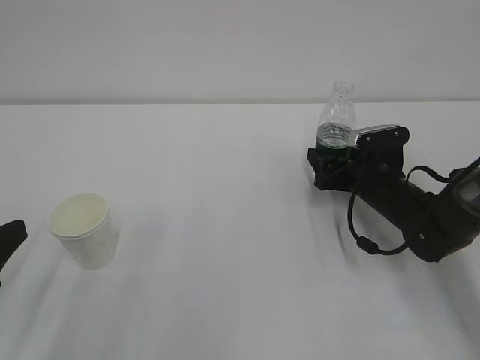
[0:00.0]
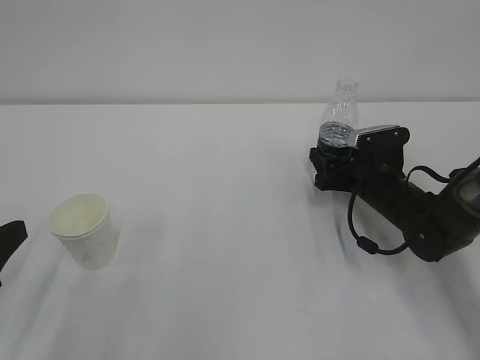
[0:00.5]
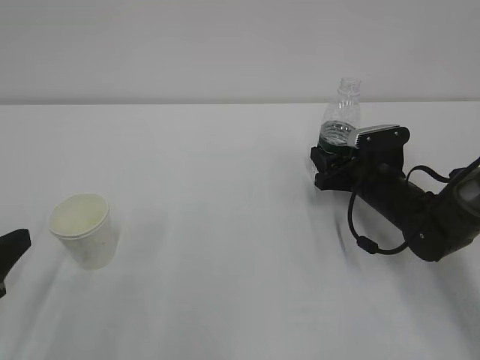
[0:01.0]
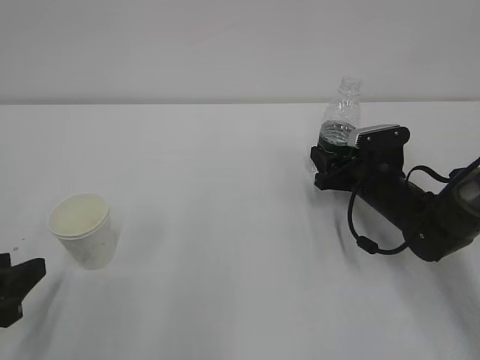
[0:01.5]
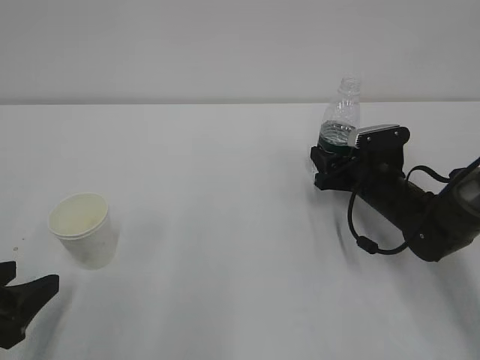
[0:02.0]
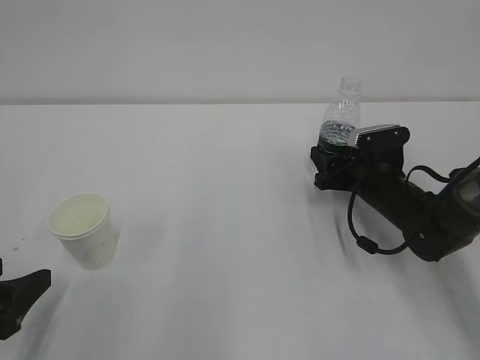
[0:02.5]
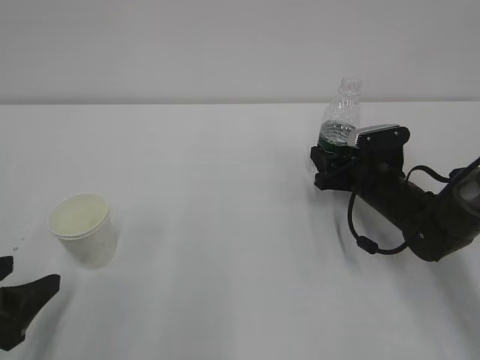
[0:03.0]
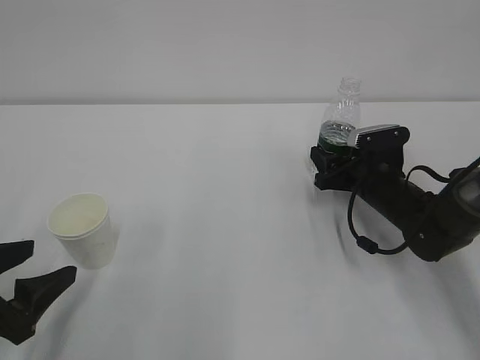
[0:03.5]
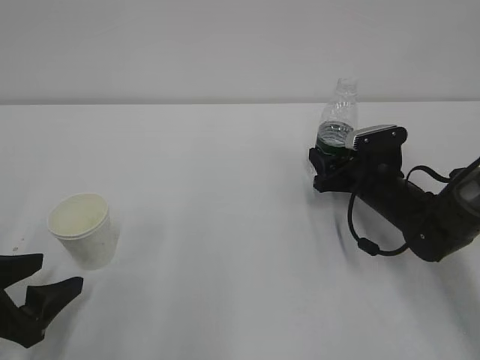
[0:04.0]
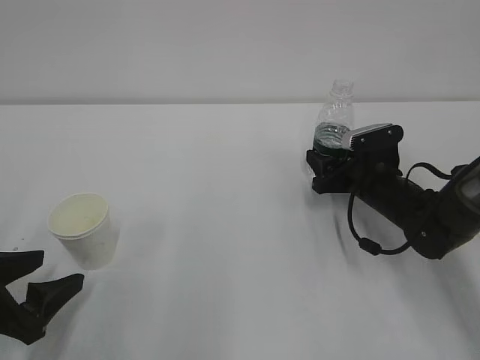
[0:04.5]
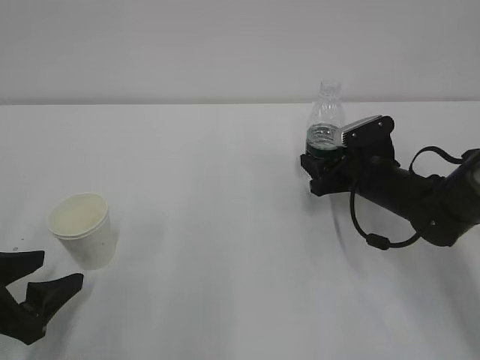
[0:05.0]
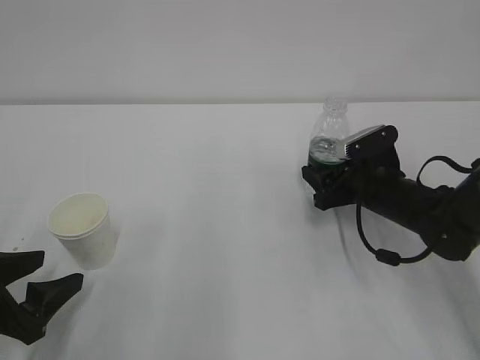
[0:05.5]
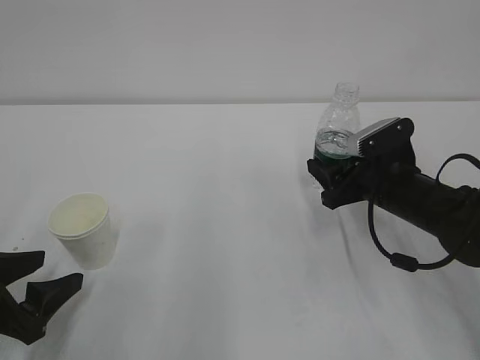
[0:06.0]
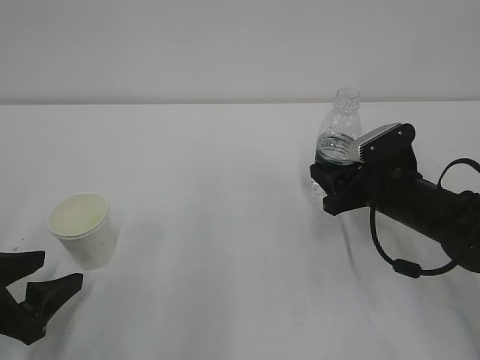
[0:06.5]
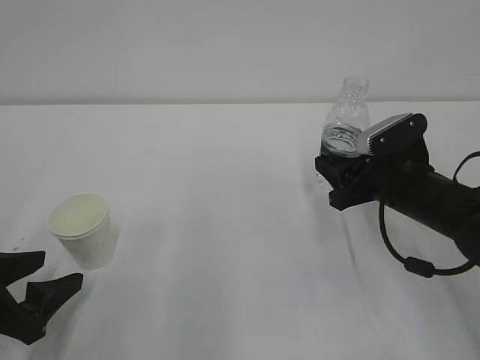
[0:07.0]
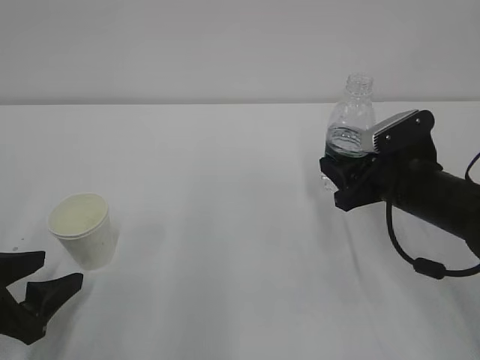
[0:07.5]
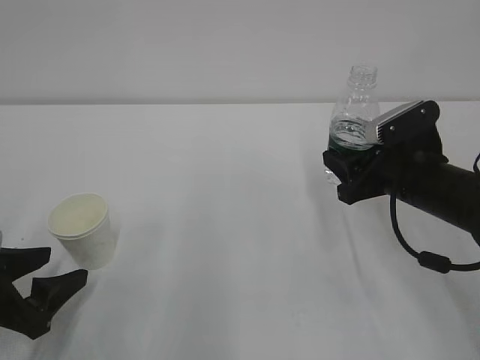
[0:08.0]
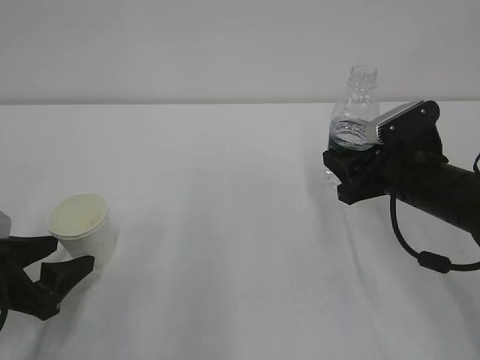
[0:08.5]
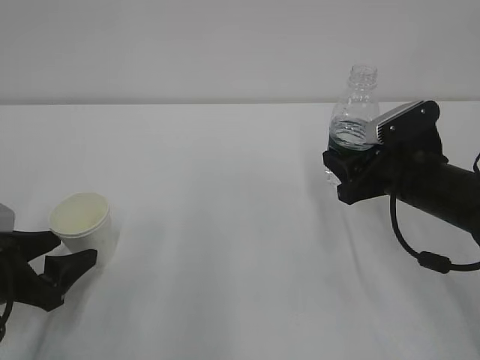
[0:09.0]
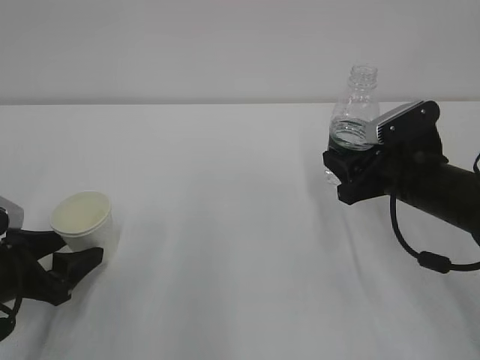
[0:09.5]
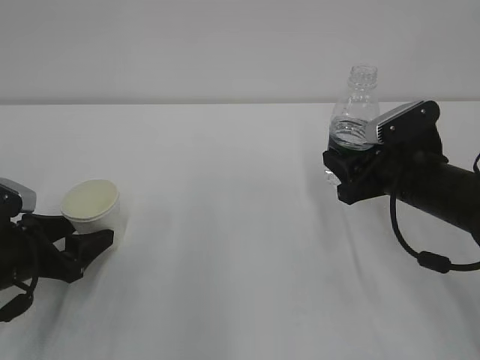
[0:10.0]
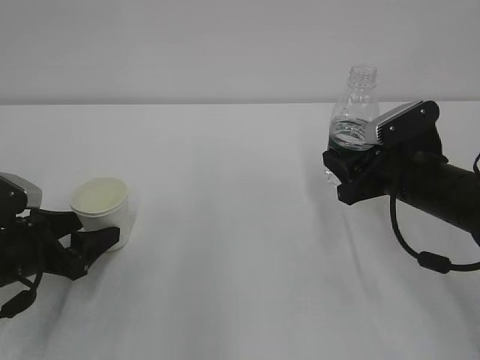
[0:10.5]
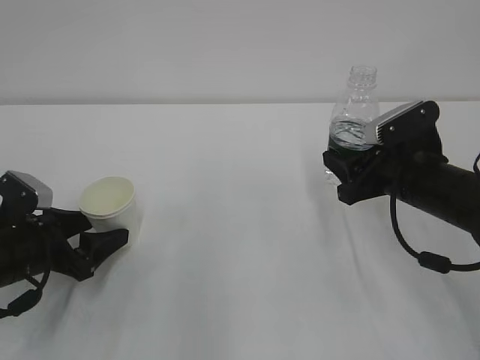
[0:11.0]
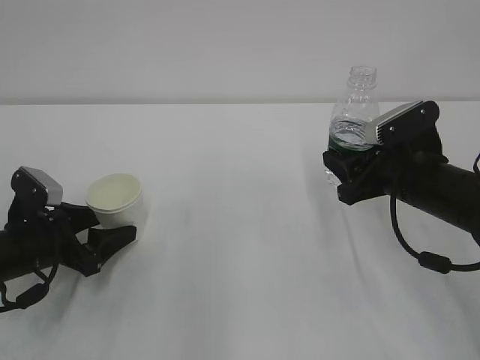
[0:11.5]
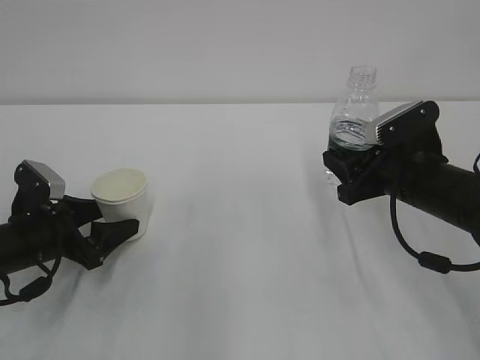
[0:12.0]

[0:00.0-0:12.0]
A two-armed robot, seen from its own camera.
0:00.0 to 0:02.0: The left gripper opens.
0:02.0 to 0:04.0: There are only small adjustments of the grippers.
0:04.0 to 0:06.0: The right gripper changes place by some 5 cm.
0:06.0 to 0:08.0: The grippers stay close to where they were, moving slightly.
0:08.0 to 0:10.0: The left gripper travels forward by some 5 cm.
0:10.0 to 0:12.0: There are only small adjustments of the grippers.

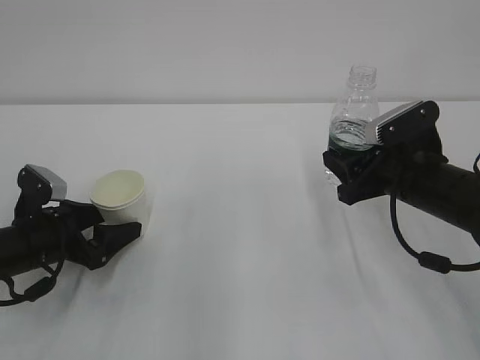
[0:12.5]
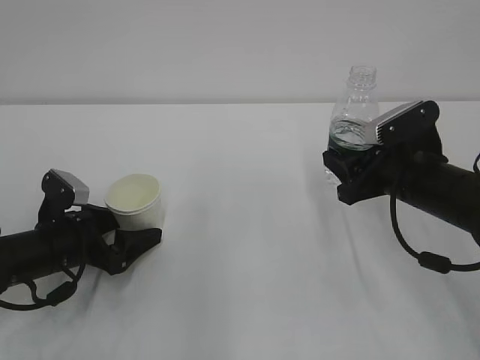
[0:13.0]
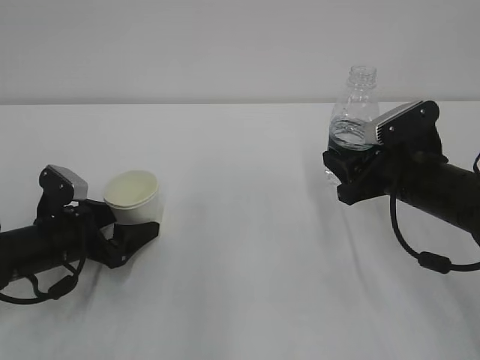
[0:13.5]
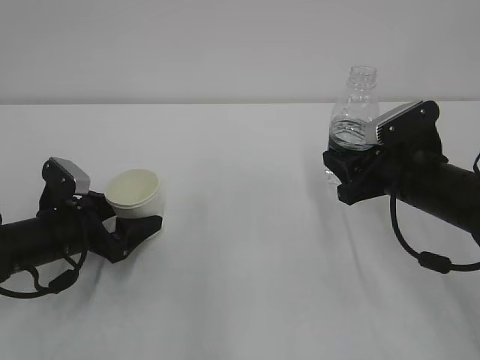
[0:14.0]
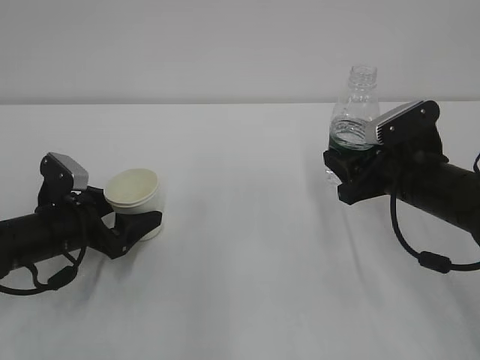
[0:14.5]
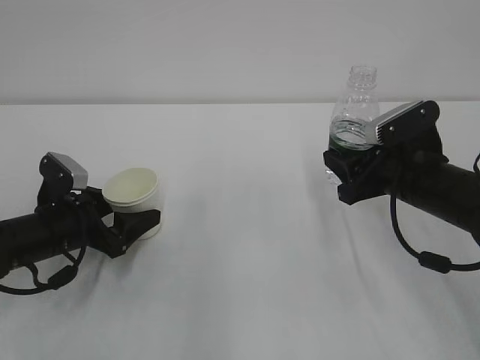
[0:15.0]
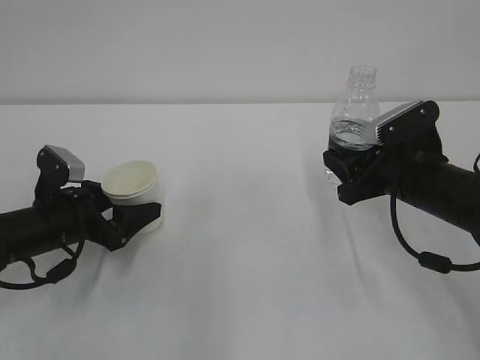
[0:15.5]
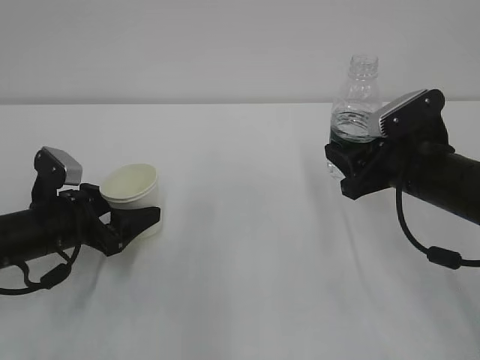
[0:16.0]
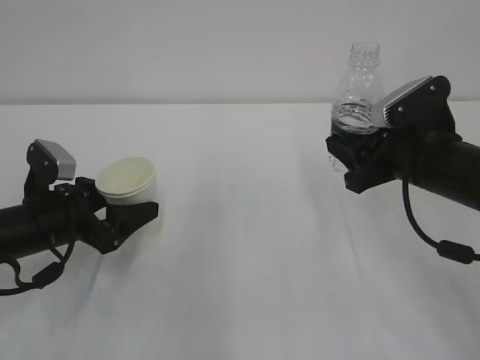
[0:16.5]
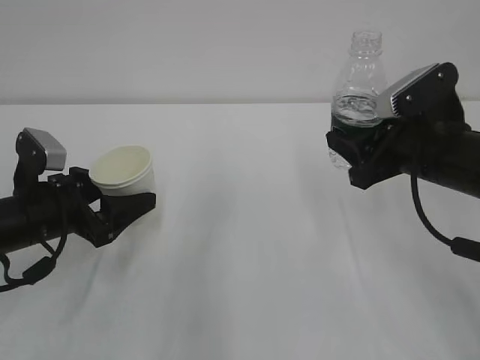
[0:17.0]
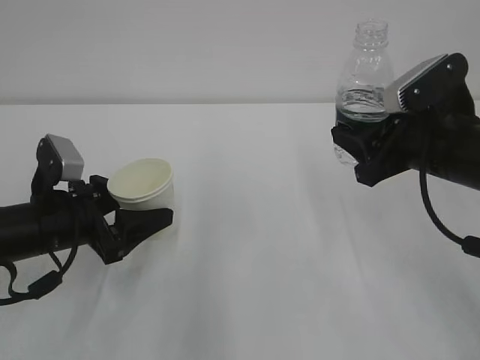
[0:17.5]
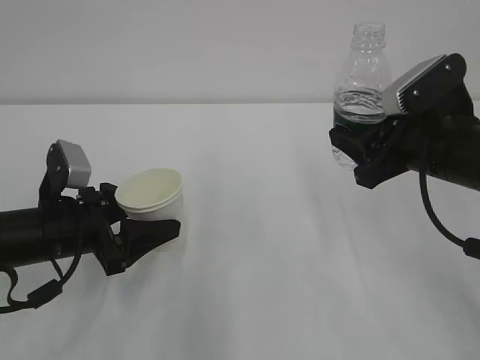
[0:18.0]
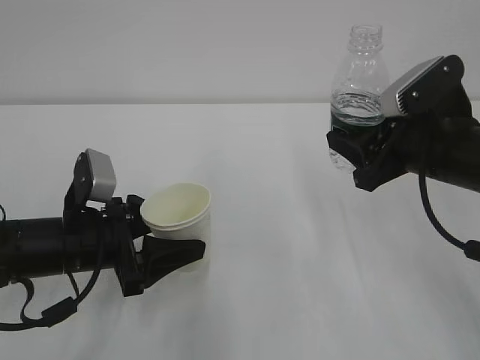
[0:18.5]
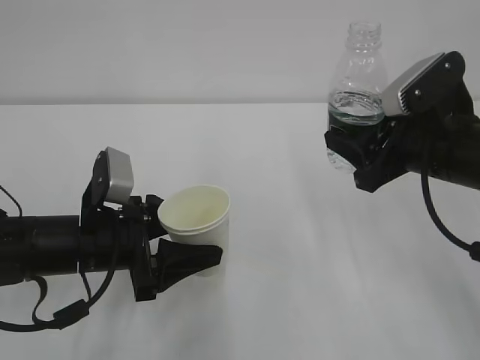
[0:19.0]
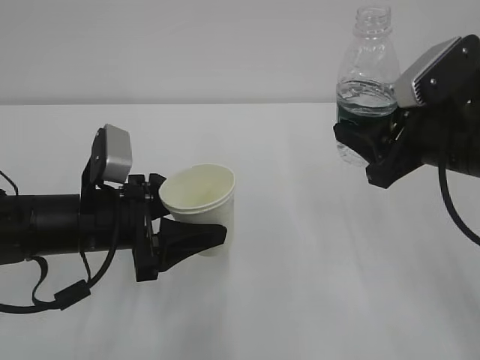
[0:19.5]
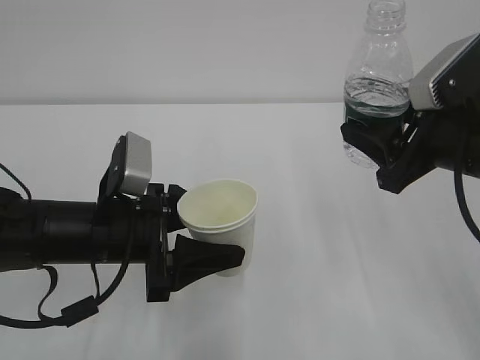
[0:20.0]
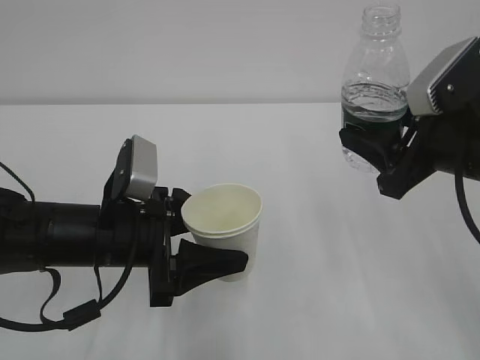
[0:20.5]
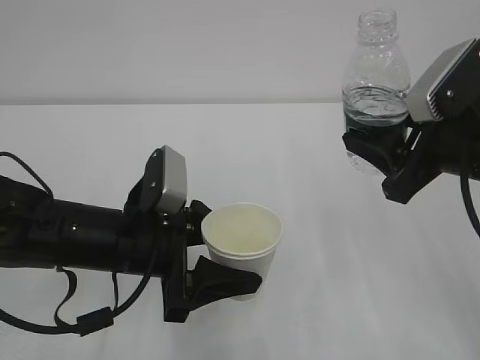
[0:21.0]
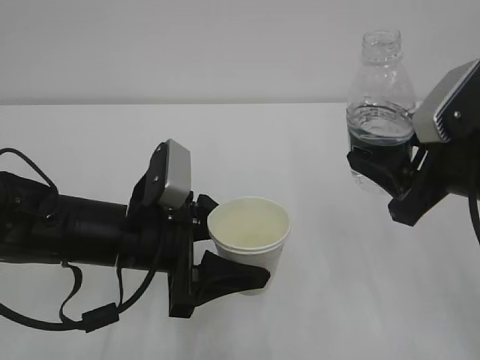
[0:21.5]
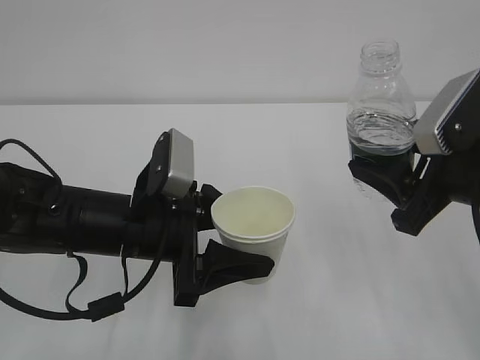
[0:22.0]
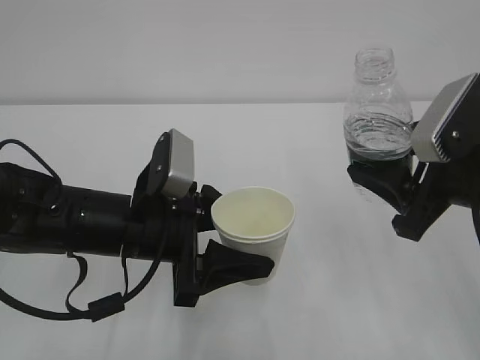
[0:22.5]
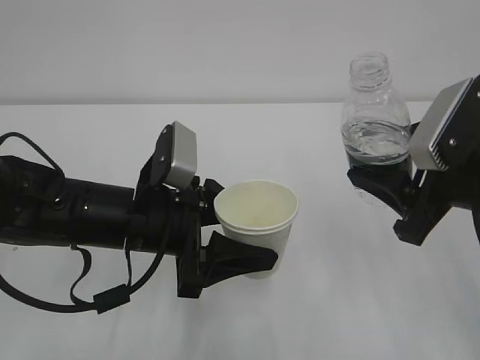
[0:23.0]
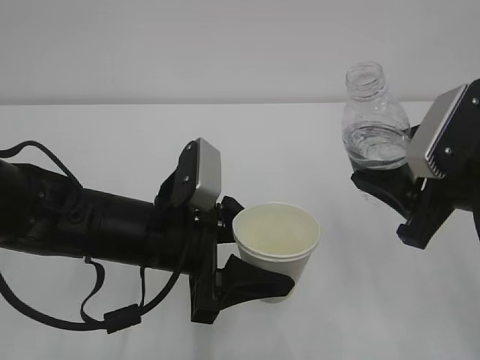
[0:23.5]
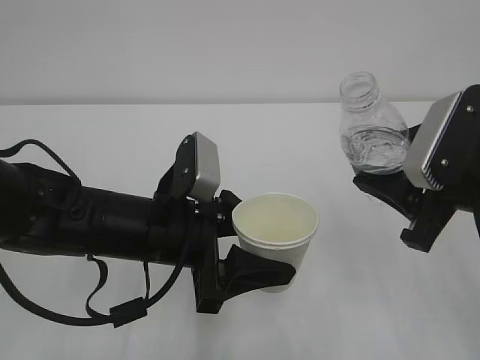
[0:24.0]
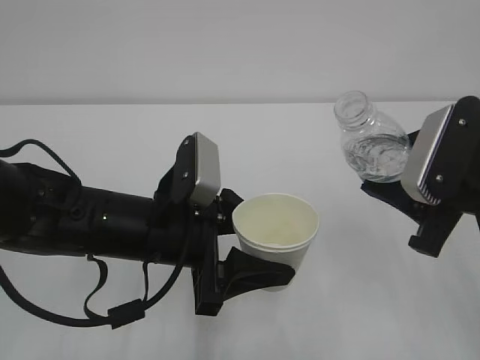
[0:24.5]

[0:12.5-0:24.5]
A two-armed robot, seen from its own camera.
Step, 0:12.5 to 0:14.5: Grasp the cup with left gripper.
0:12.5 to 0:16.5: The grippers move only a little.
0:16.5 to 0:18.5: The left gripper travels to the right by approximately 5 cm.
0:18.5 to 0:20.5: The left gripper ends up approximately 5 cm from where it was.
0:22.5 to 0:24.5: The grippers move only a little.

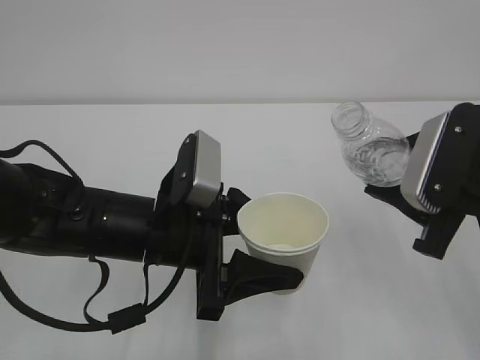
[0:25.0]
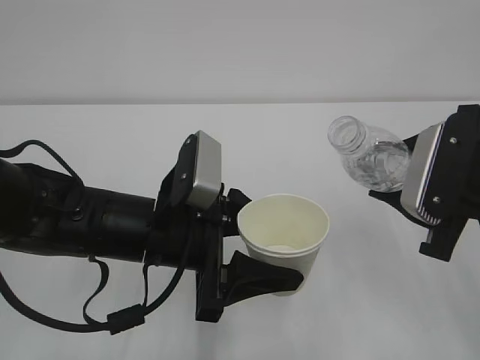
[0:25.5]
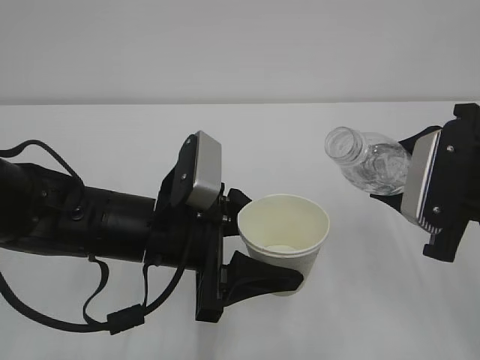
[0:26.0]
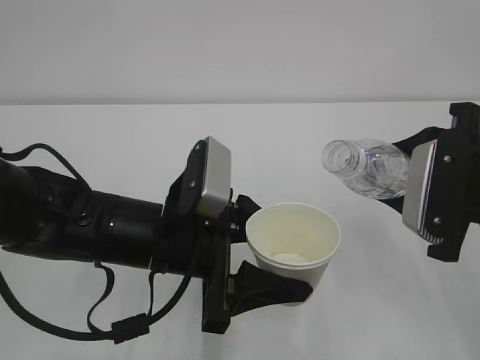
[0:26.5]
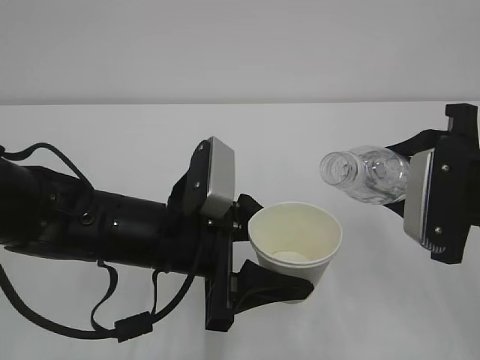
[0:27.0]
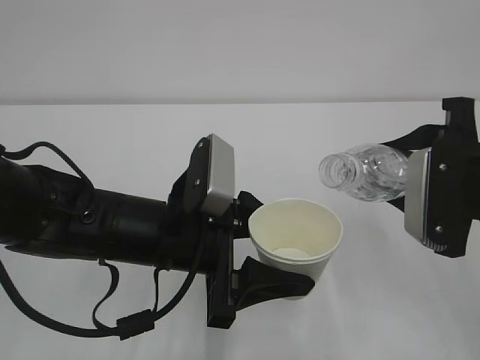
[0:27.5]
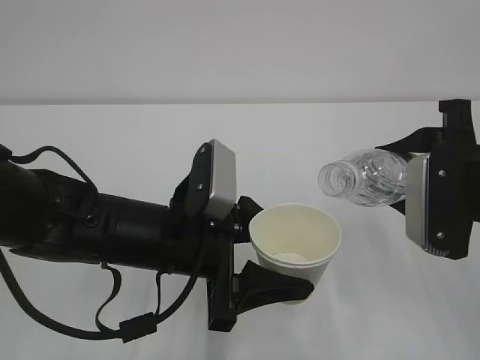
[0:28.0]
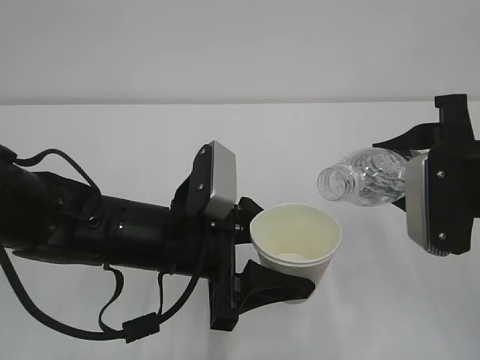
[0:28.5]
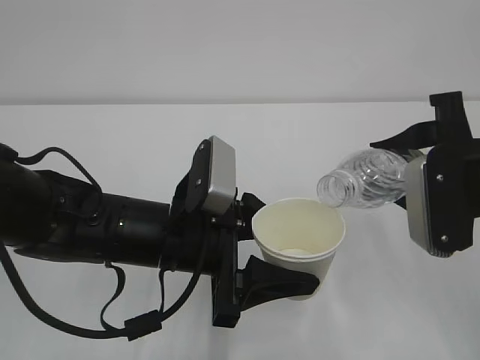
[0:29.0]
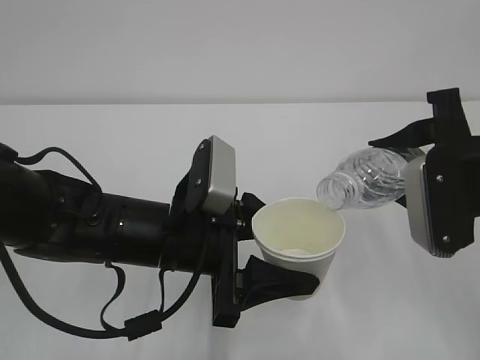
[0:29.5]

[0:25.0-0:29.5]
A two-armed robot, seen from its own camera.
0:27.0 to 0:29.5: The grippers stay close to where they were, moving slightly.
